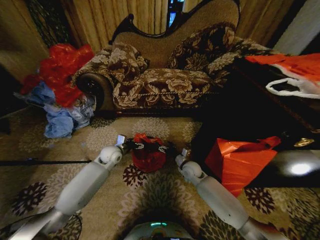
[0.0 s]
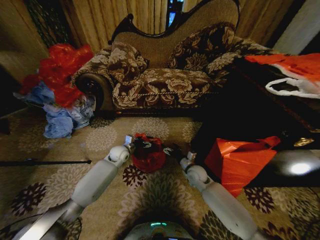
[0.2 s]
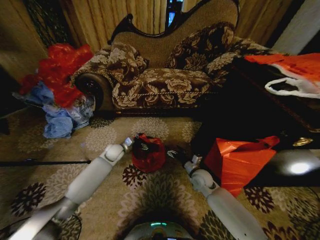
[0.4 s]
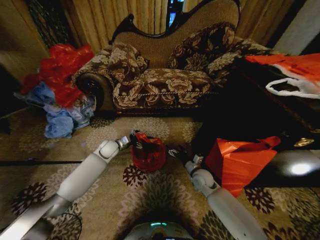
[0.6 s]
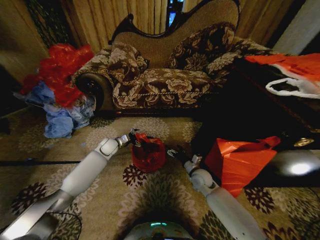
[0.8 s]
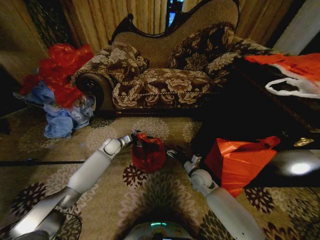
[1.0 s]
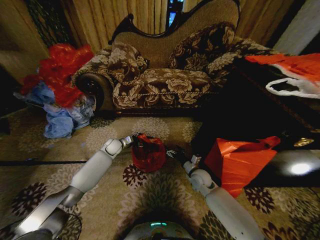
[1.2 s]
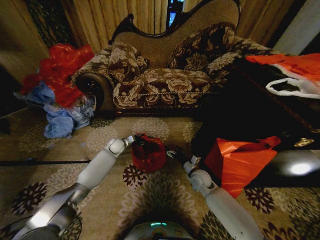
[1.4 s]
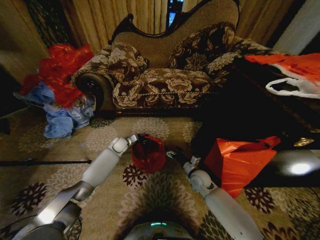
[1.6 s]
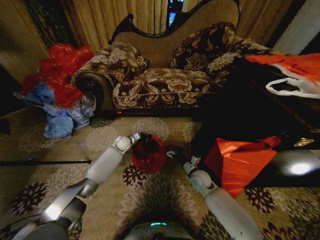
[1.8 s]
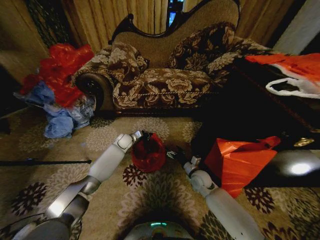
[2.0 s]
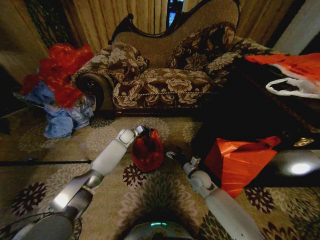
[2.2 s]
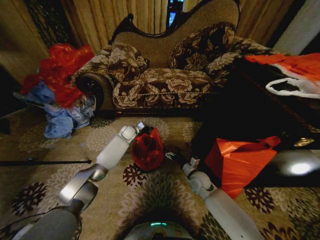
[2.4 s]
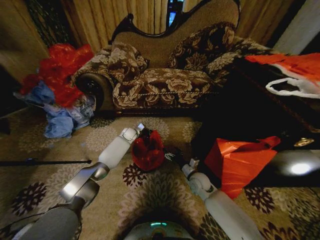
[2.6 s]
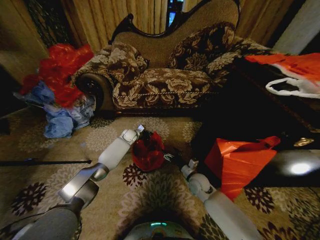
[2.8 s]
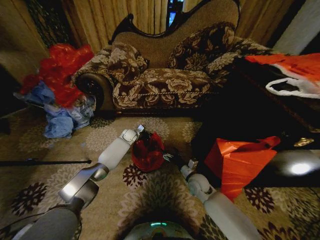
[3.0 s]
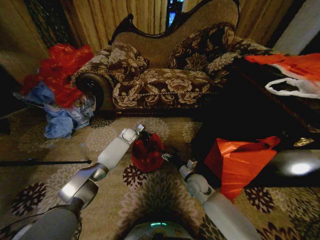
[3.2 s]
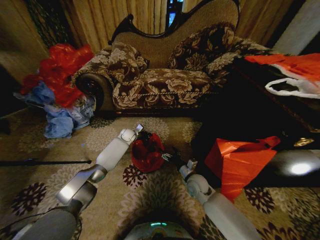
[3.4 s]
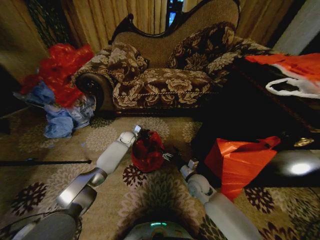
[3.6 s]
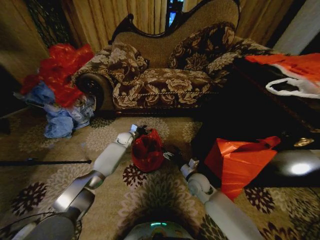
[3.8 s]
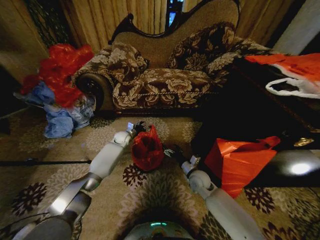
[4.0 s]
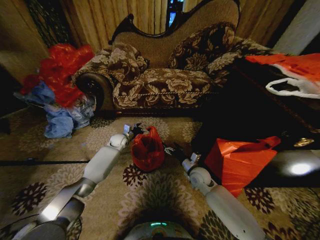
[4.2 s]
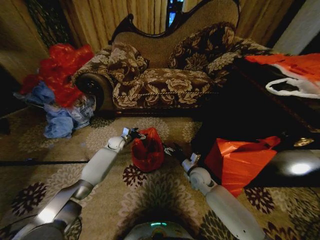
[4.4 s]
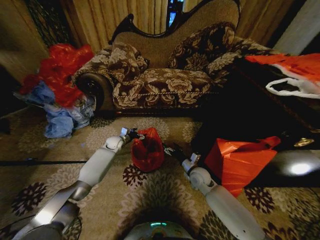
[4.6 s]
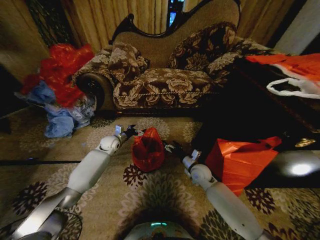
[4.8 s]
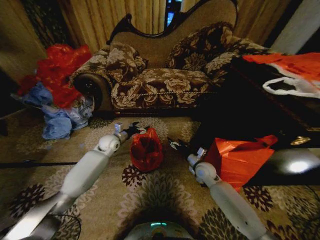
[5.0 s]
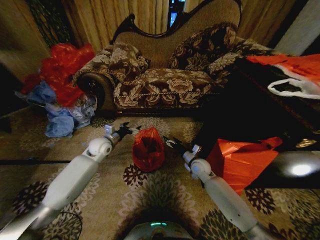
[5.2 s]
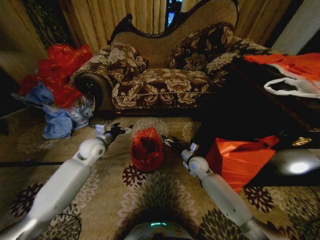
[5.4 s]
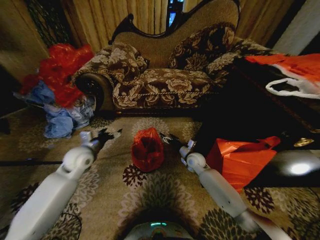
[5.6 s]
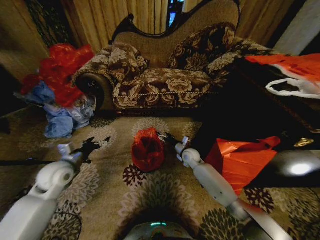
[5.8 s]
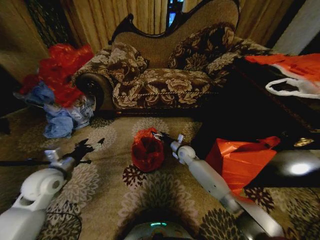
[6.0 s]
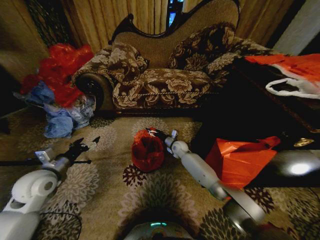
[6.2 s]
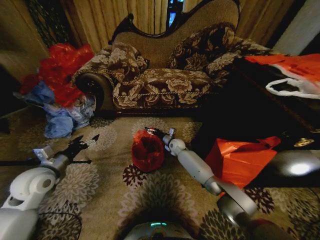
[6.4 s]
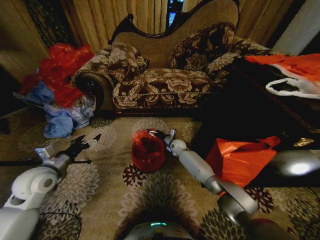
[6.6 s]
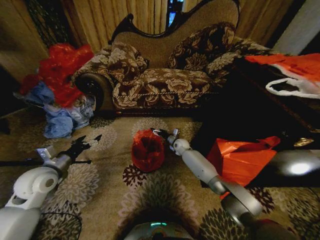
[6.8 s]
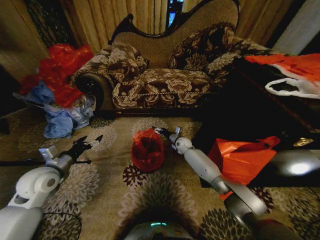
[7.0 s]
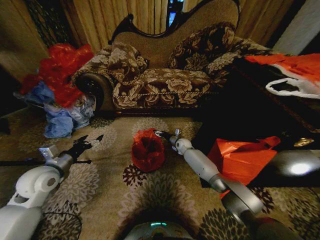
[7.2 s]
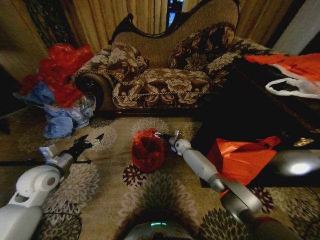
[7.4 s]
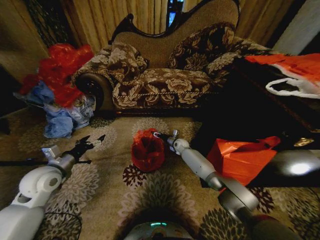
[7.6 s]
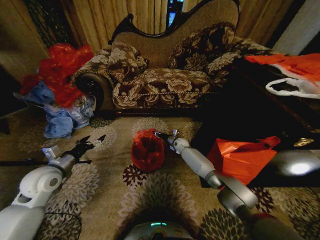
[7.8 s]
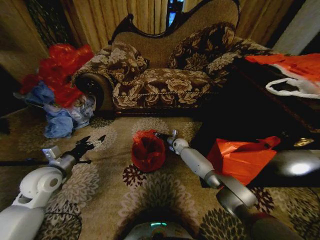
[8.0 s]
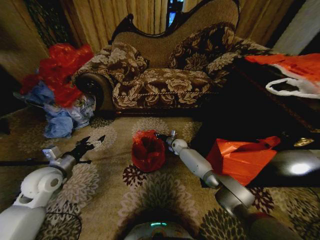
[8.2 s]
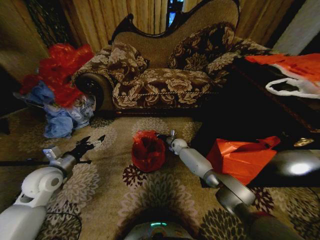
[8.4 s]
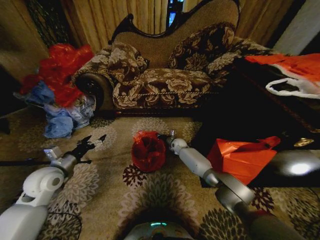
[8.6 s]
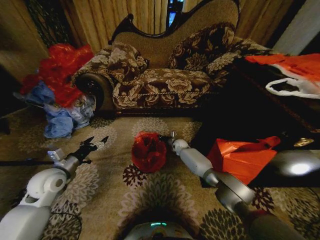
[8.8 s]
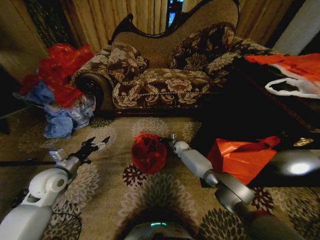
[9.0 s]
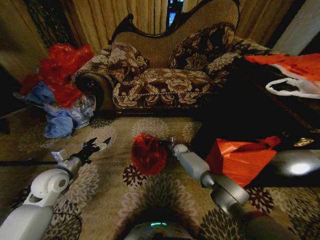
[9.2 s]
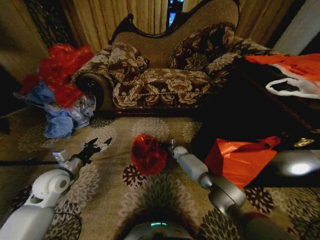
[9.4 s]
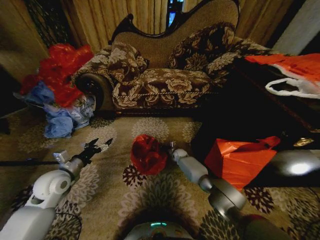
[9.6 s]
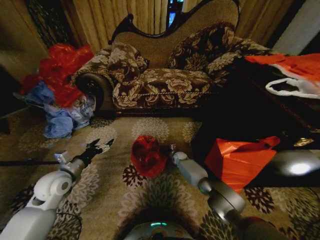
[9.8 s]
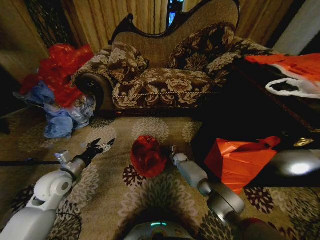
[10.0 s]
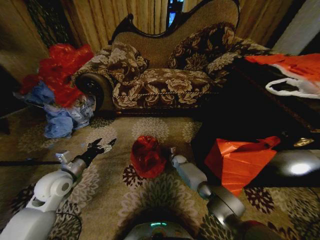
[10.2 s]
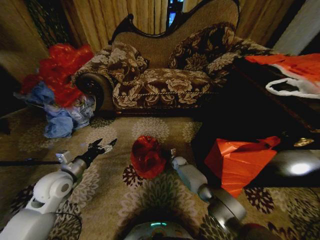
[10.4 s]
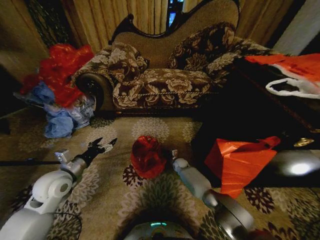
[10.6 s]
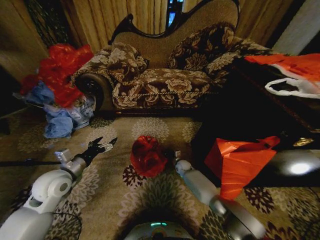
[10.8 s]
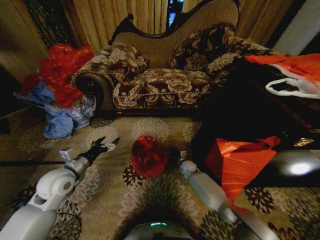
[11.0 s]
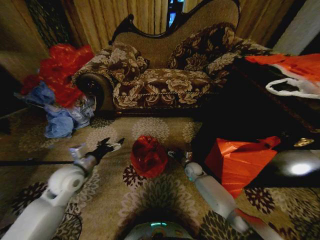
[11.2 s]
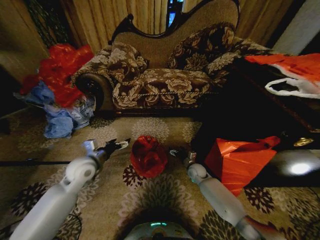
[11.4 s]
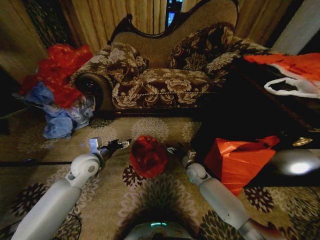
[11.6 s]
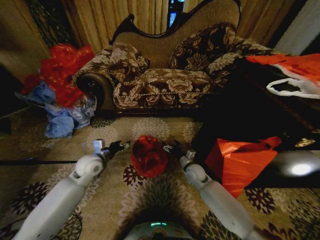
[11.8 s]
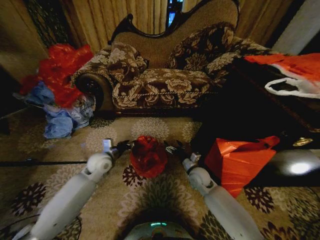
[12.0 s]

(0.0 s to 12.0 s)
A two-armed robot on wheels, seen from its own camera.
Task of the whole recording: Place a garbage bag over the trash bin.
0.0 s - 1.6 s: The right gripper shifts by some 5 cm. The left gripper moves forward, roughly 10 cm, and closes its fingers.
1.6 s - 3.0 s: The left gripper heads forward, covering about 5 cm.
3.0 s - 4.4 s: The left gripper goes approximately 10 cm to the left and backward, and opens its fingers.
4.4 s - 6.0 s: The left gripper moves backward, to the left and upward, approximately 35 cm. Meanwhile the right gripper travels forward by approximately 15 cm.
6.0 s - 7.6 s: The right gripper moves forward, about 10 cm.
7.6 s - 9.0 s: The right gripper closes.
9.0 s - 10.4 s: The right gripper goes about 10 cm downward and backward.
10.4 s - 12.0 s: The right gripper travels backward and upward by approximately 20 cm, and opens up. The left gripper shifts approximately 15 cm forward and to the right, and closes its fingers.

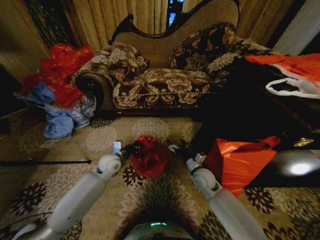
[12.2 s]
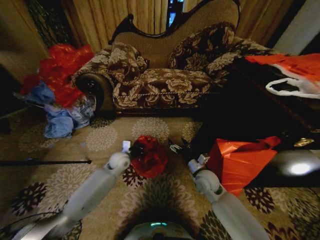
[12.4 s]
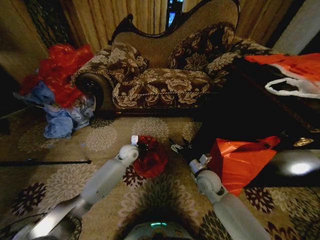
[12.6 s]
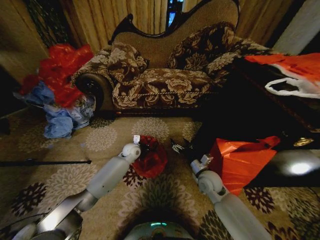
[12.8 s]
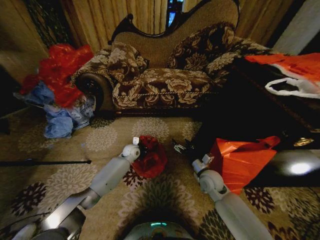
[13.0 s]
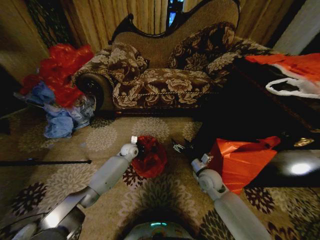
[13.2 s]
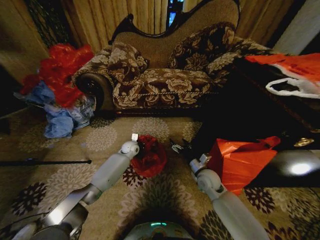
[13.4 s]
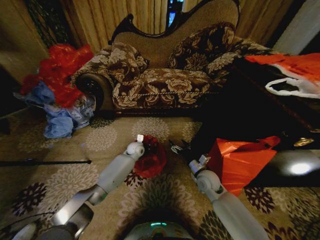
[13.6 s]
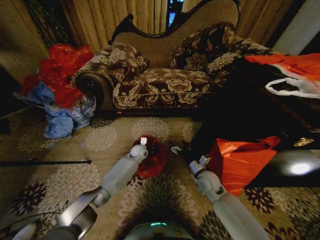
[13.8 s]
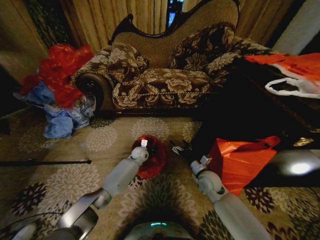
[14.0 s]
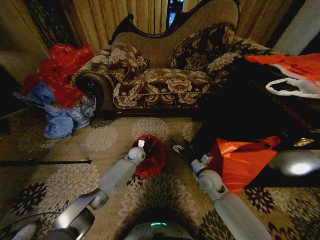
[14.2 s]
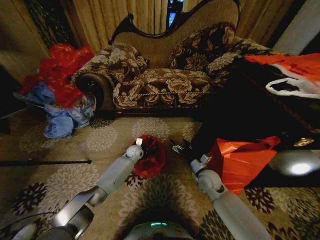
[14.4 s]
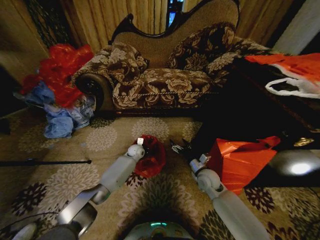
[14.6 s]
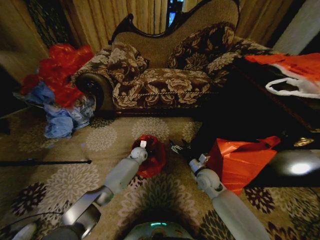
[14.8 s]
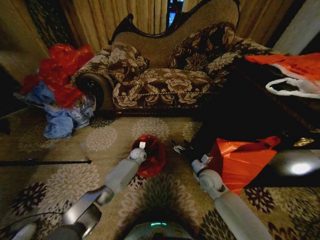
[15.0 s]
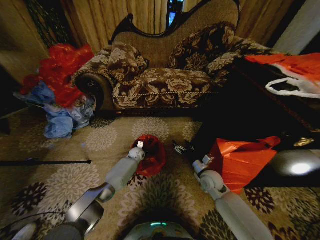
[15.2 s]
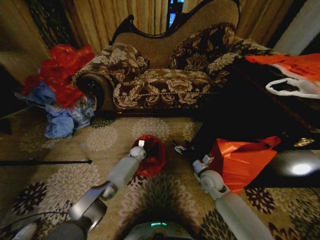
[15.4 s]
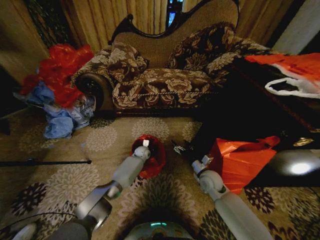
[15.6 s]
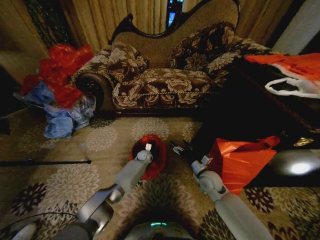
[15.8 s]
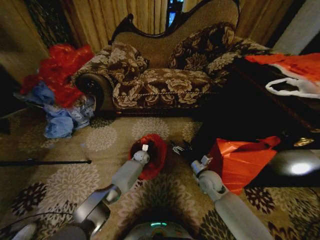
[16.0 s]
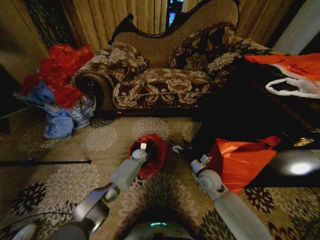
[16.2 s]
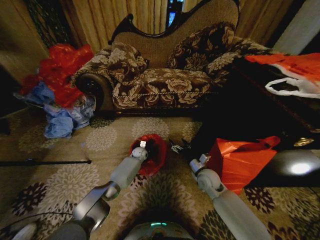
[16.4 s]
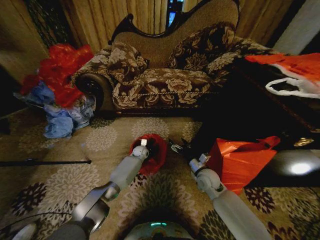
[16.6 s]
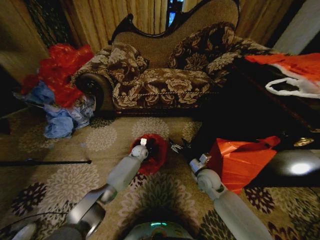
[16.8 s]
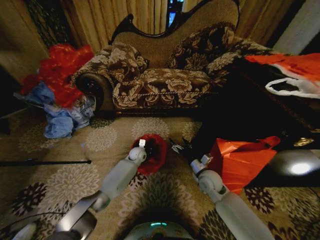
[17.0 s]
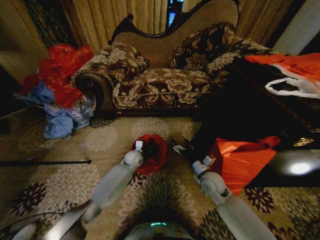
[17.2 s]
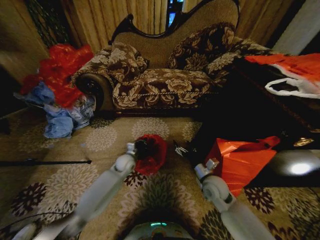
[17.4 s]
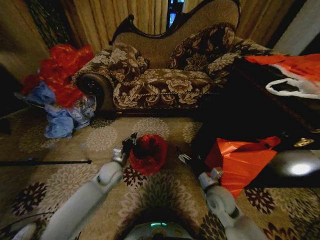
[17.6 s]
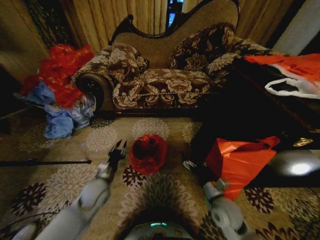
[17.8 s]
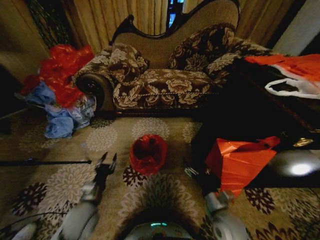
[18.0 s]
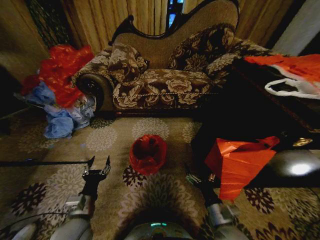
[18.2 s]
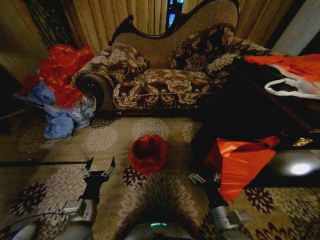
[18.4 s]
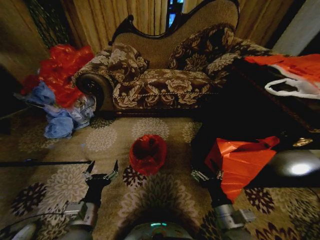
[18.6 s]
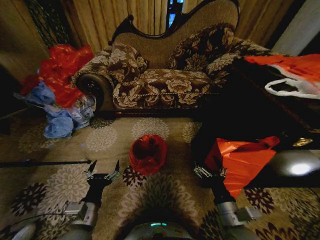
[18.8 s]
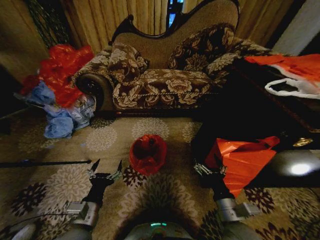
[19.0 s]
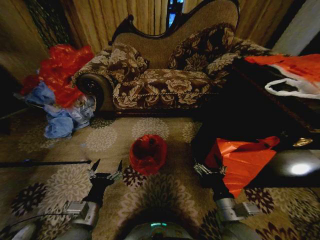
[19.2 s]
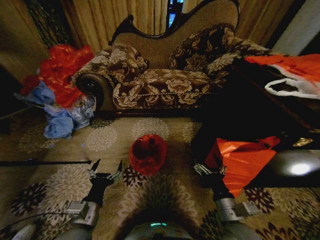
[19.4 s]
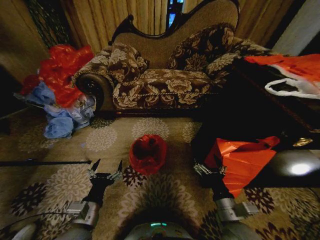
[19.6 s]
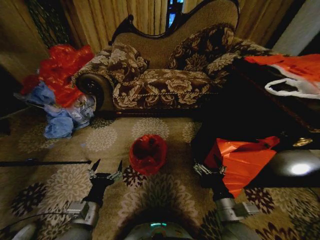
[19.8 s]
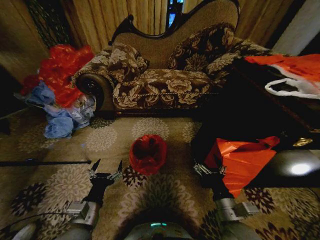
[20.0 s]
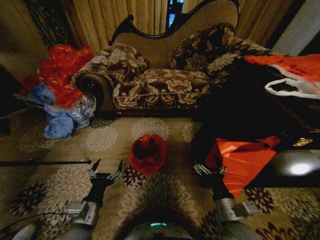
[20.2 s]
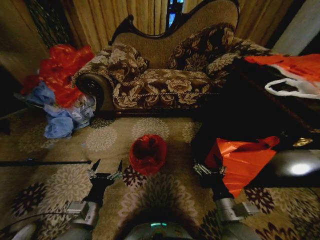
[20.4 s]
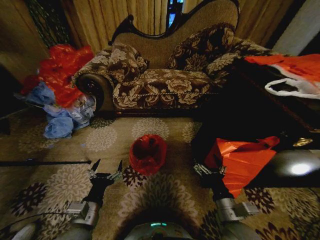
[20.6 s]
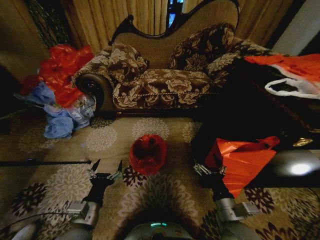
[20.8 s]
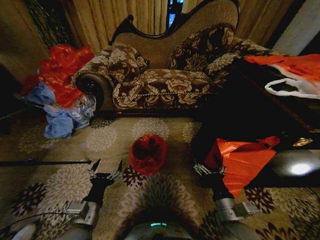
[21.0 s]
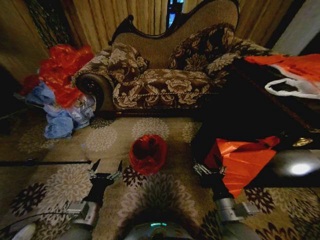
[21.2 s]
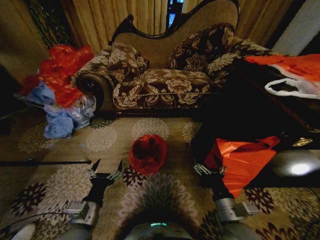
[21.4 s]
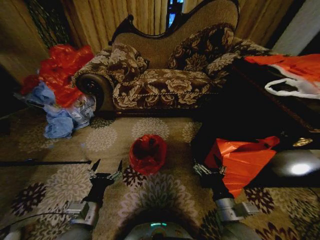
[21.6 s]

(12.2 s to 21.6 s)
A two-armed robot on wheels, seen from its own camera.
Task of the whole recording: Place a garbage bag over the trash bin.
12.2 s - 13.8 s: The left gripper travels forward, to the right and downward by some 20 cm, and closes its fingers.
13.8 s - 15.4 s: The left gripper shifts about 5 cm downward.
15.4 s - 17.0 s: The left gripper ends up approximately 5 cm from where it was.
17.0 s - 18.4 s: The right gripper travels backward by some 20 cm, while the left gripper heads backward, covering about 40 cm, and opens its fingers.
18.4 s - 20.0 s: There are only small adjustments of the grippers.
20.0 s - 21.6 s: Neither gripper changes place.
